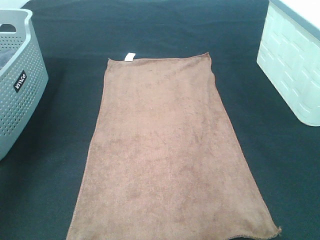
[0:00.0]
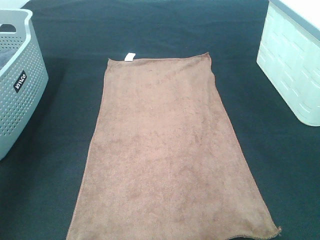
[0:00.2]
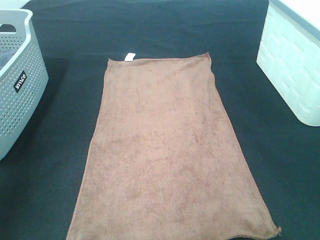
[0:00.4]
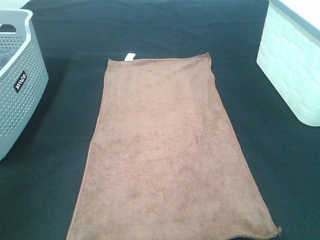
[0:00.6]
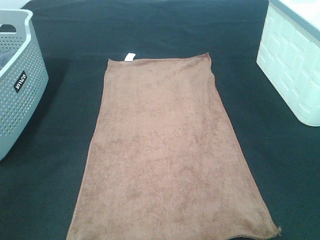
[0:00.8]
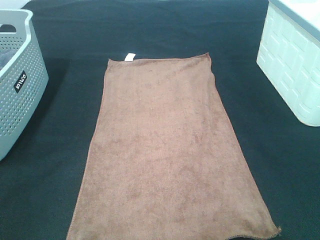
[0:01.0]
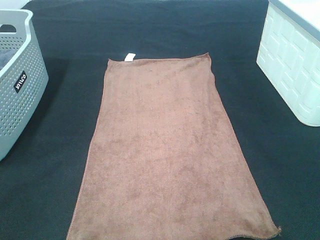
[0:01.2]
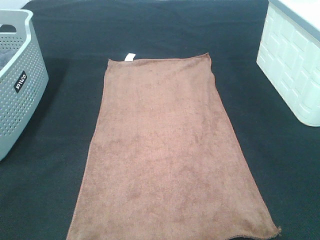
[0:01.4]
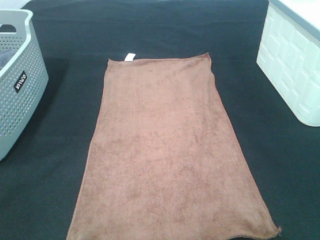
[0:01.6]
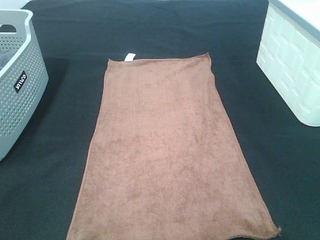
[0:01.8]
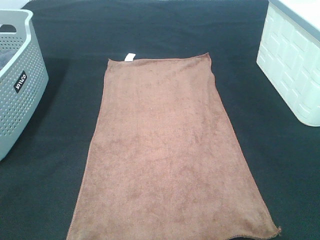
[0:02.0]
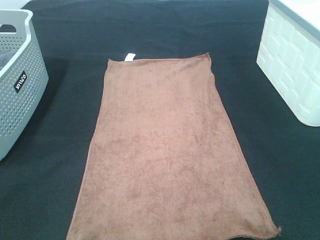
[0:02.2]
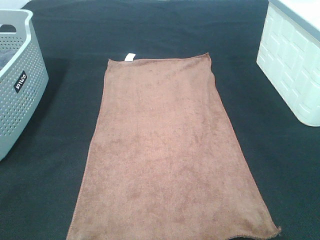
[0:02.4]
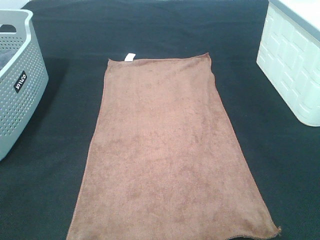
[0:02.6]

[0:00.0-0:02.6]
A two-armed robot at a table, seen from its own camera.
Task of the whole recording: Remove the towel and place it.
0:00.0 to 0:01.2: The left gripper is displaced backward by approximately 30 cm.

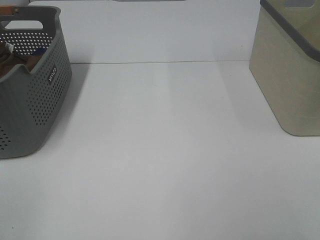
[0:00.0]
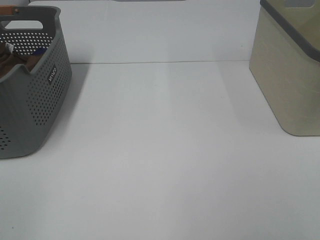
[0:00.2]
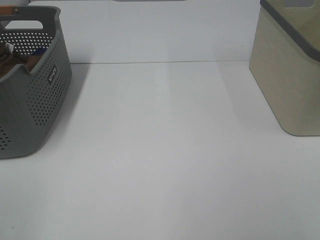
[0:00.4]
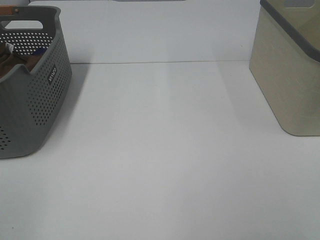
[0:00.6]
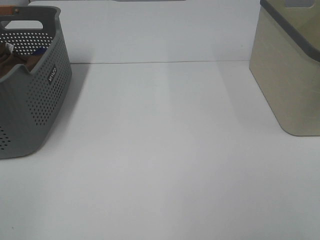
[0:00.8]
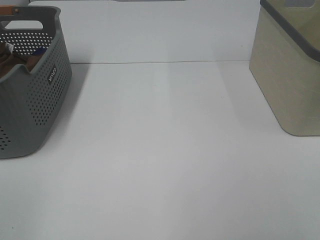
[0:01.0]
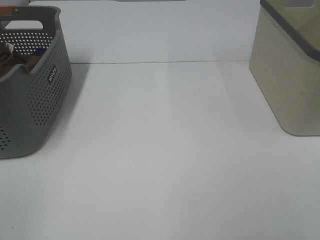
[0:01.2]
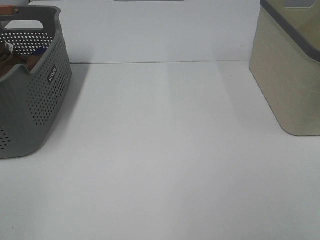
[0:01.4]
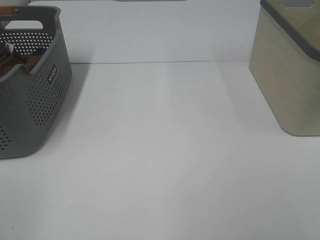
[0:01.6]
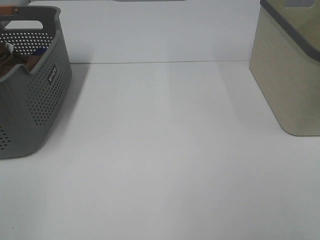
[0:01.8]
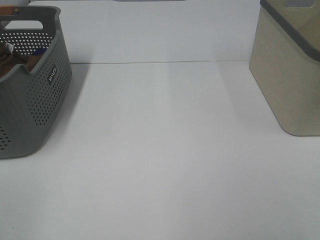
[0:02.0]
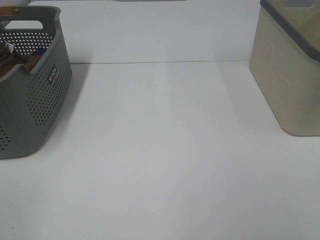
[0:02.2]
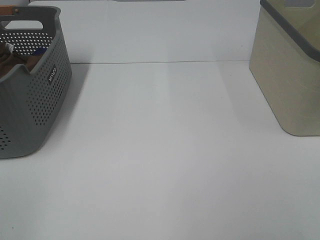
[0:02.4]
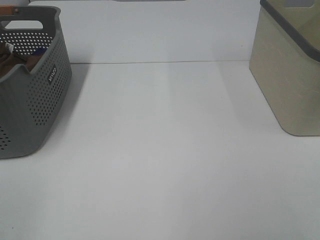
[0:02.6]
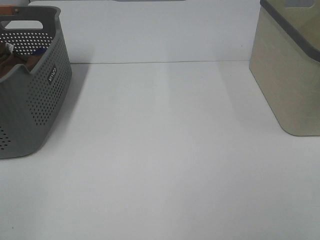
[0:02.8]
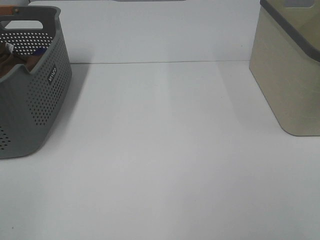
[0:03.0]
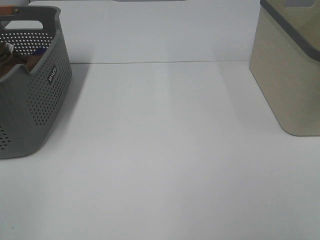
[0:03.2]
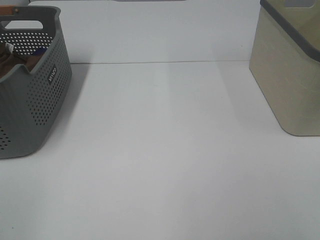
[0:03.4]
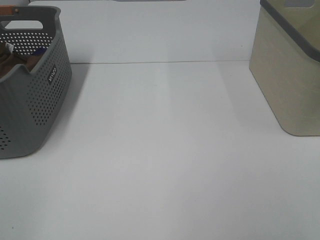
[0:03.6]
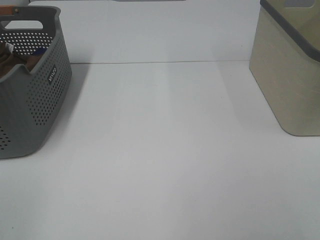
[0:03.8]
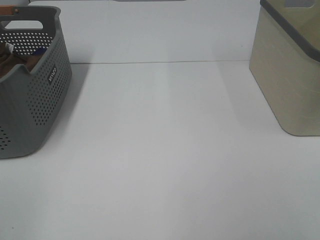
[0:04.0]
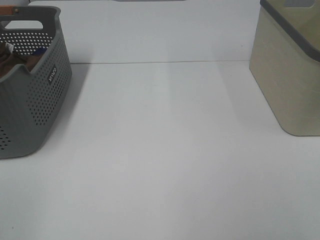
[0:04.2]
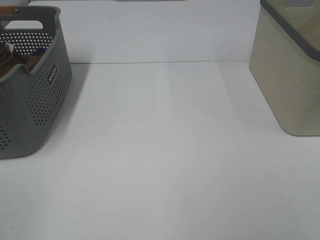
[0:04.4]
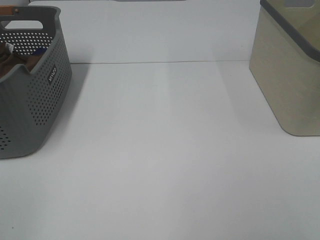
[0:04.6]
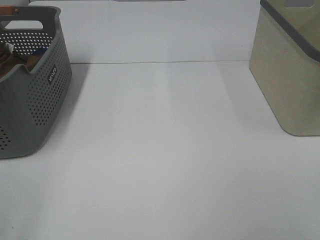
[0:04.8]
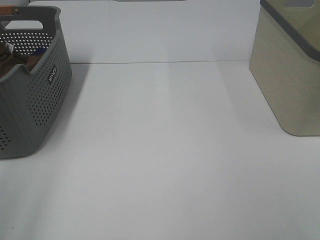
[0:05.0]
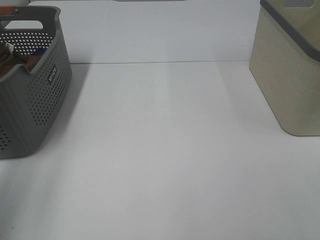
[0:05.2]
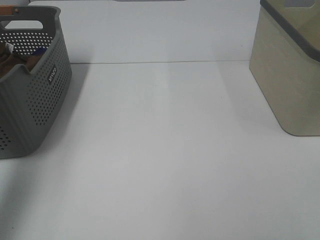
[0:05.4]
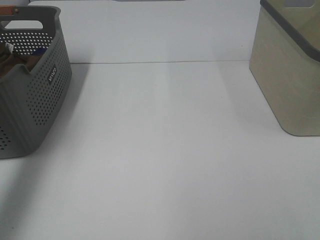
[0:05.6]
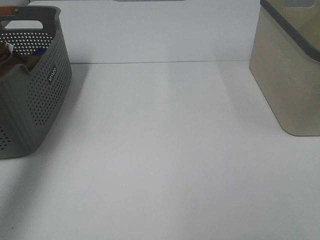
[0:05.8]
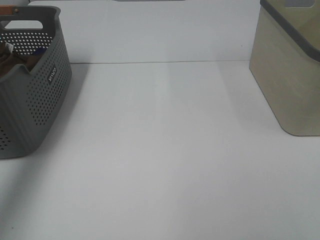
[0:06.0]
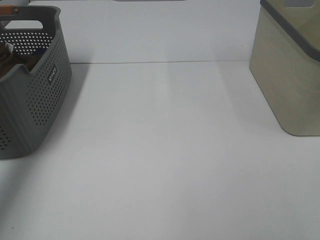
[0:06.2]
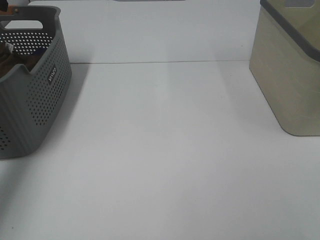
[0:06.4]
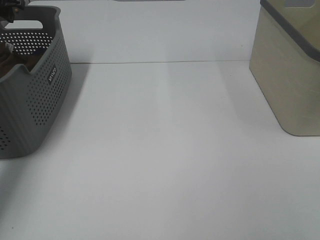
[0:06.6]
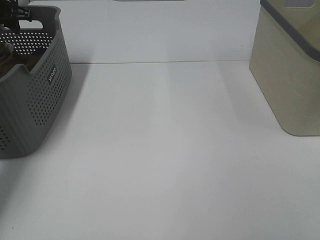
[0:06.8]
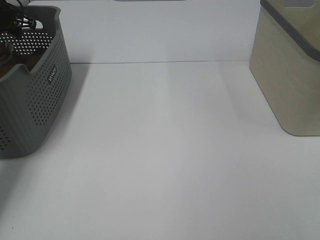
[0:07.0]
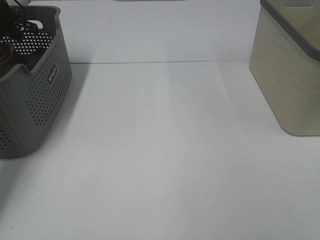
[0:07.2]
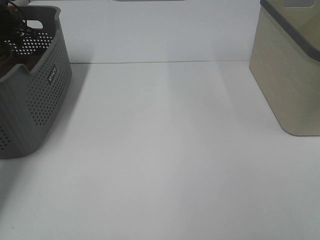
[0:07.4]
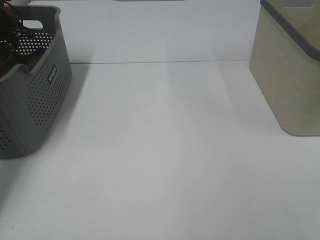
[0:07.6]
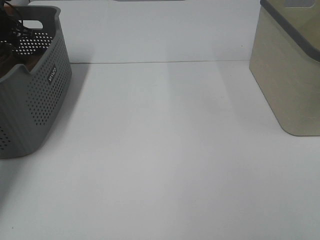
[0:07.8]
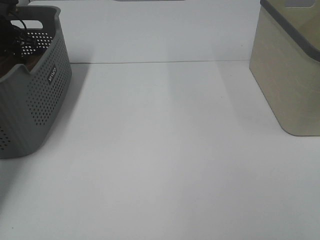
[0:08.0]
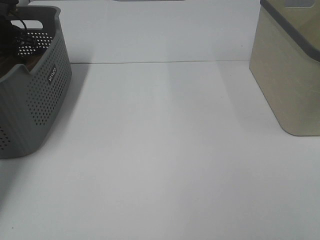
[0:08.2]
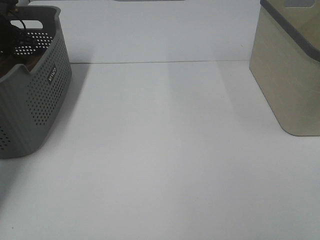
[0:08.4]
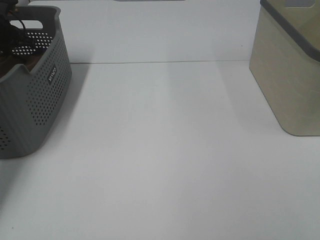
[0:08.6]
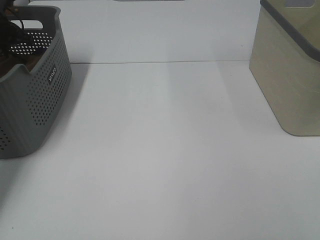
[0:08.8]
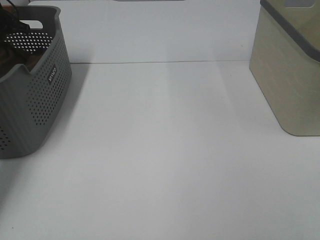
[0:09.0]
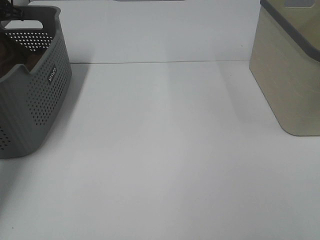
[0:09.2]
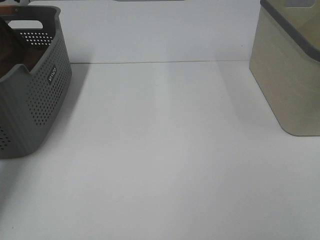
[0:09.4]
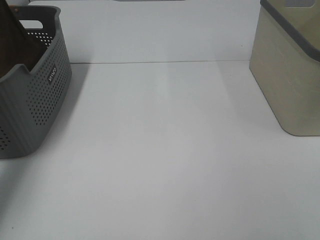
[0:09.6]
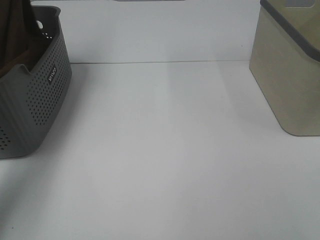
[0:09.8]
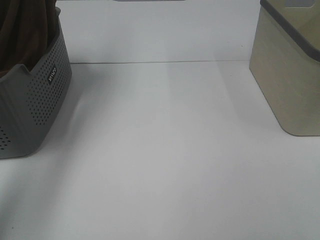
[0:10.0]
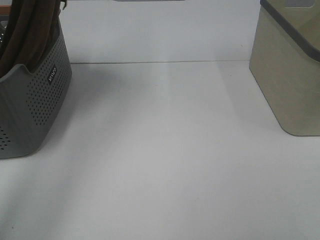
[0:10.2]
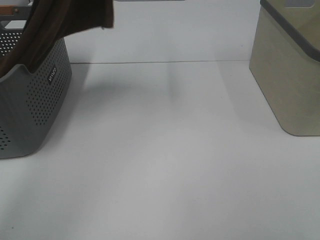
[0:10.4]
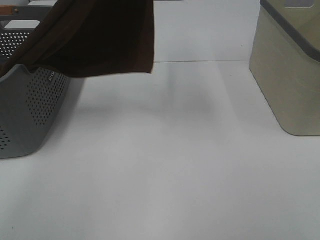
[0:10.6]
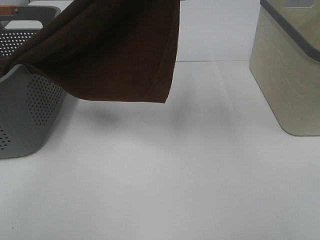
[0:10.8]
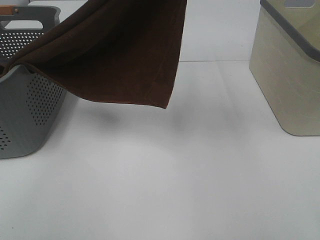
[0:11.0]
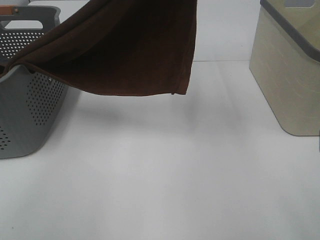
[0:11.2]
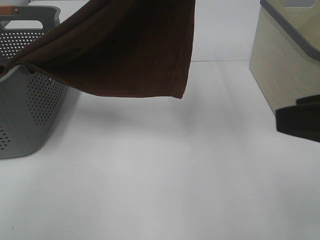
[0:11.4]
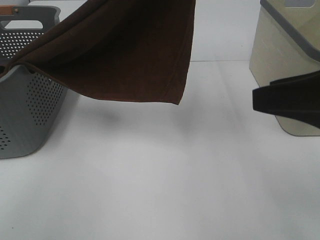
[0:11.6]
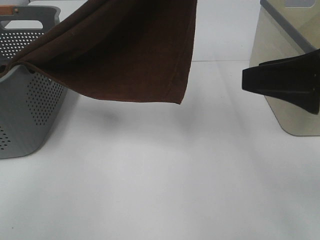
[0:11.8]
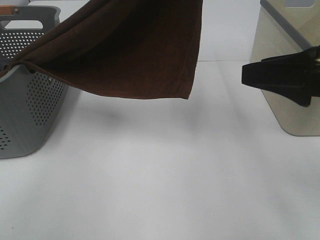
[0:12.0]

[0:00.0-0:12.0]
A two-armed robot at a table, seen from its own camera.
Task of the whole recording: Remove the towel and place it.
0:00.0 to 0:04.4: The two grippers keep their place.
0:04.4 to 0:06.0: The left gripper travels forward by roughly 40 cm.
0:06.0 to 0:07.6: The left gripper is displaced forward and downward by approximately 20 cm.
0:09.0 to 0:10.4: The left gripper goes roughly 40 cm upward, to the right and backward.
0:10.4 to 0:12.0: The left gripper heads to the right and backward, covering roughly 15 cm, while the right gripper is displaced forward by roughly 20 cm.

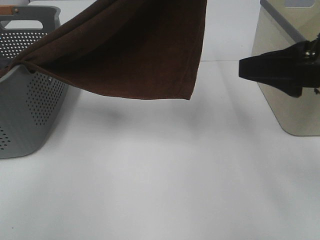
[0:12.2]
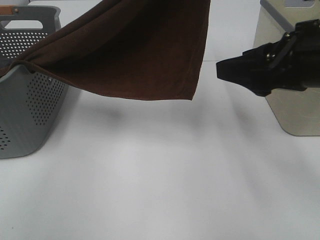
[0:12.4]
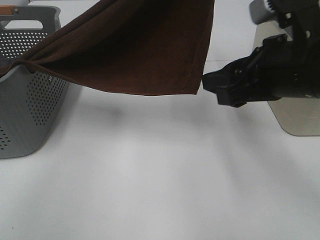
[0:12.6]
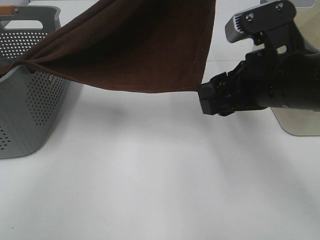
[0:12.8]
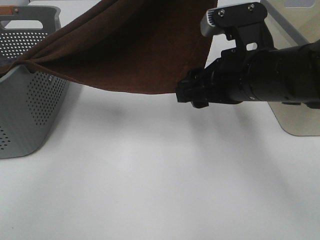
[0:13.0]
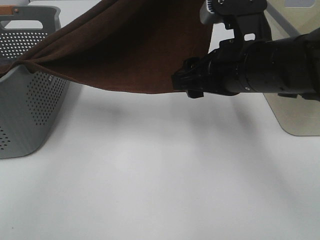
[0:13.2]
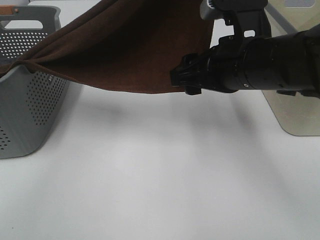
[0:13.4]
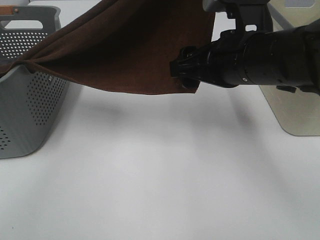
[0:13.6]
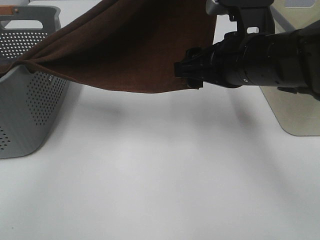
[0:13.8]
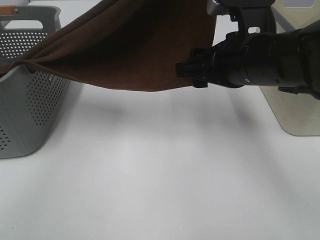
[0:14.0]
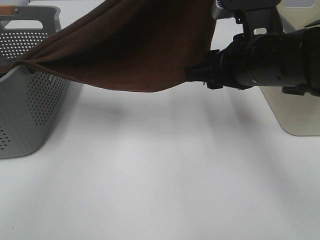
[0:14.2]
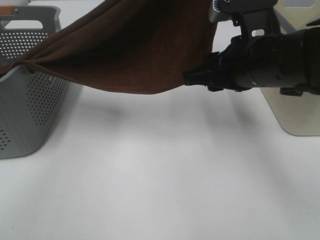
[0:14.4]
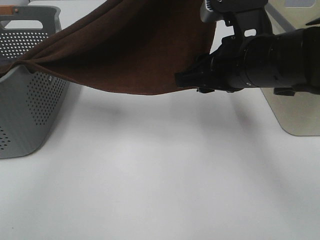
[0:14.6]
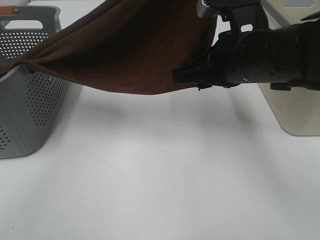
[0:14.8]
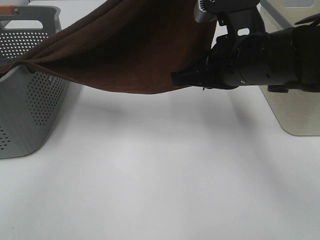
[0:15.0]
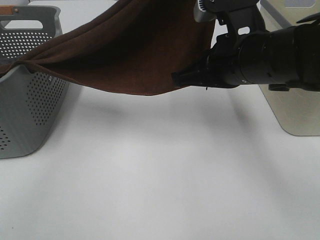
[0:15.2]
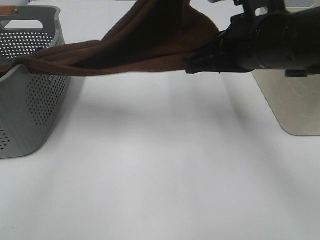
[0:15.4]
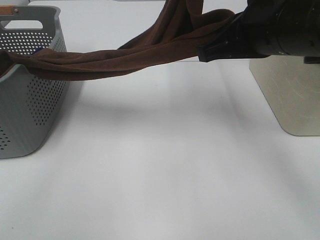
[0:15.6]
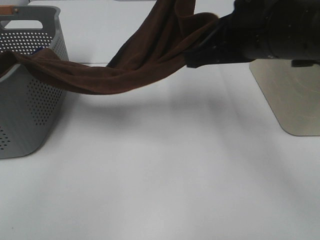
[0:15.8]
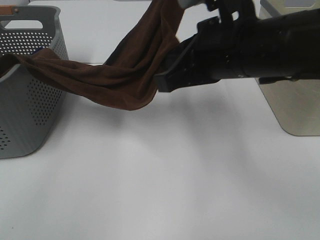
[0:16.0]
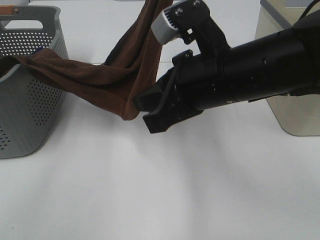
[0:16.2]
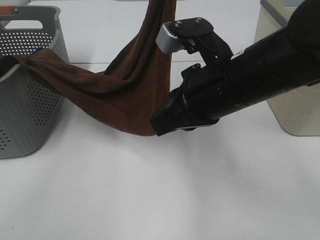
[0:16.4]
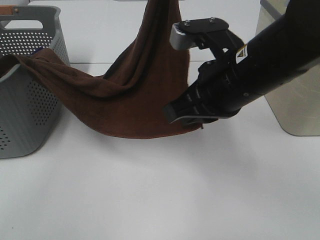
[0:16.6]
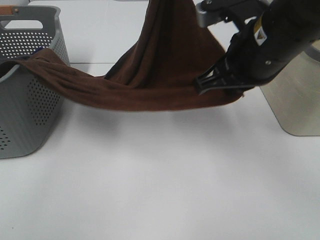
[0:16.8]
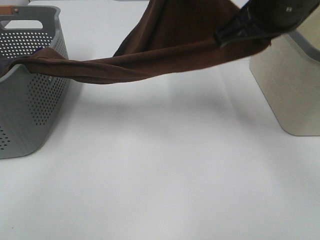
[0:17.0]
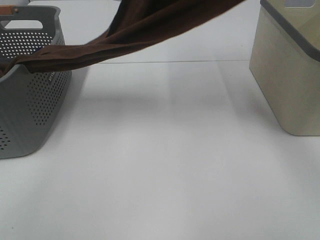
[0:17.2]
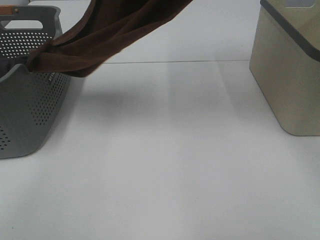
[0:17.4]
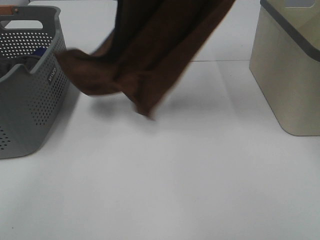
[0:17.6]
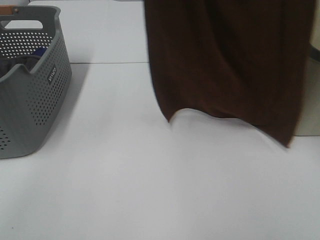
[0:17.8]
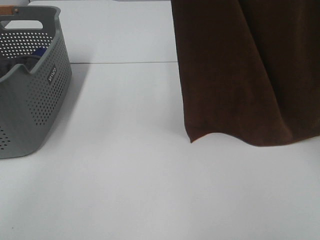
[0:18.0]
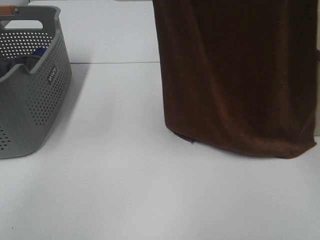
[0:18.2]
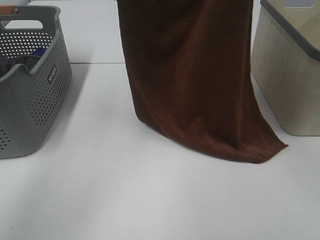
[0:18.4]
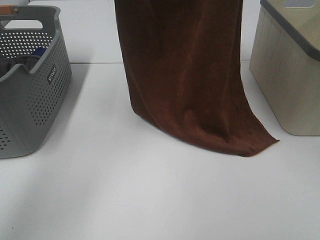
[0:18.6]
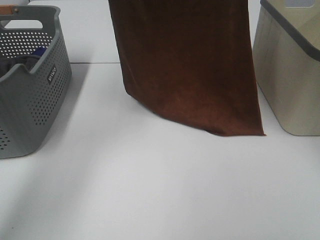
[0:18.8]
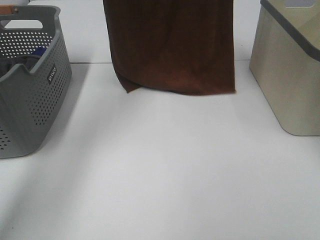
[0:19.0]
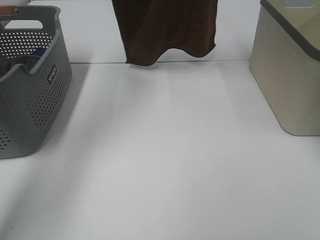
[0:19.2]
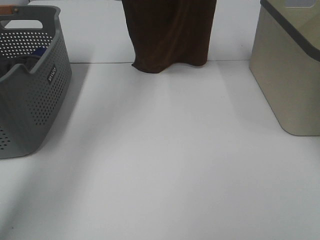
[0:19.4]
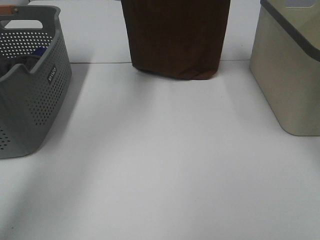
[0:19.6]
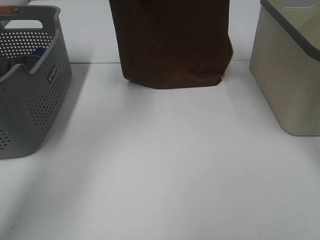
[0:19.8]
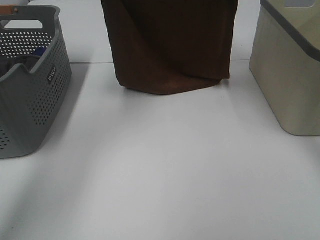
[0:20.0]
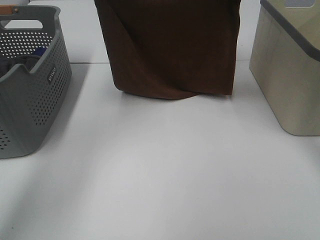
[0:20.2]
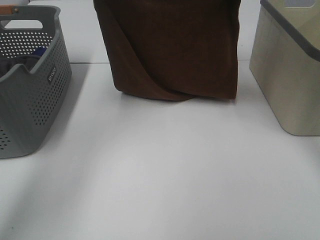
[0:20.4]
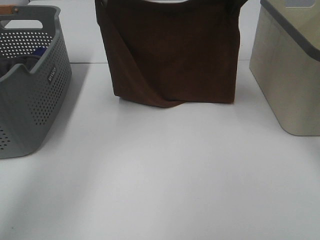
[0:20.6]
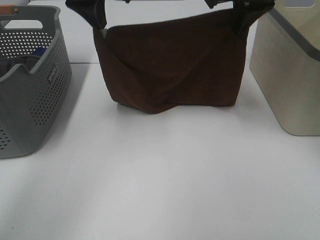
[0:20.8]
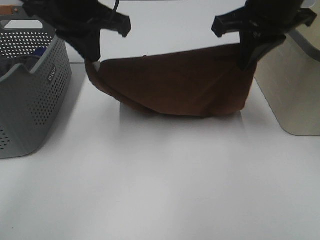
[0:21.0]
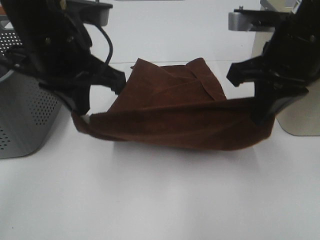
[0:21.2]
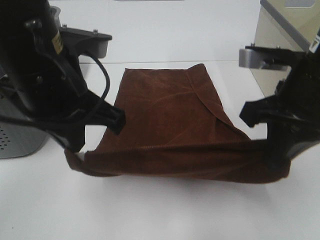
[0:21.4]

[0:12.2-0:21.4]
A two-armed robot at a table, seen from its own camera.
Task of the whole recording: Remove the towel and place it.
Step, 0:12.2 to 0:14.8: Right hand: grab a corner of the brown towel and straighten it.
Step, 0:15.0 to 0:18.2: Left hand: spread the brown towel flat on the table.
Step, 0:15.0 to 0:18.2: Right hand: spread the brown towel flat on the table.
0:12.2 to 0:13.8: The right gripper shifts approximately 10 cm to the left and forward.
0:13.8 to 0:15.2: The right gripper closes its fingers.
0:15.2 to 0:16.8: The left gripper moves roughly 5 cm.
0:16.8 to 0:18.4: The right gripper moves upward and forward, roughly 20 cm, while the left gripper travels to the left and forward by approximately 10 cm, and moves about 15 cm upward and comes back.
0:18.4 to 0:19.8: The right gripper shifts roughly 15 cm forward and downward, while the left gripper is displaced downward by some 5 cm.
0:19.8 to 0:21.4: Both grippers travel together backward and downward, approximately 30 cm.
